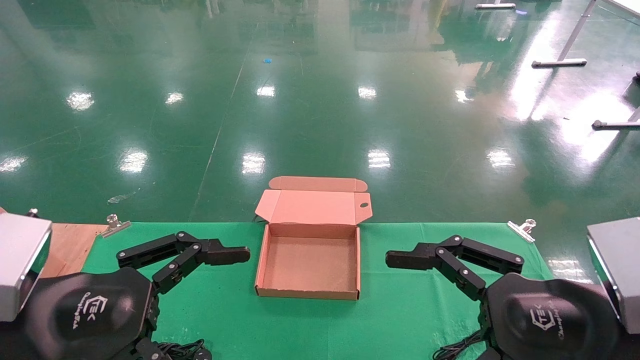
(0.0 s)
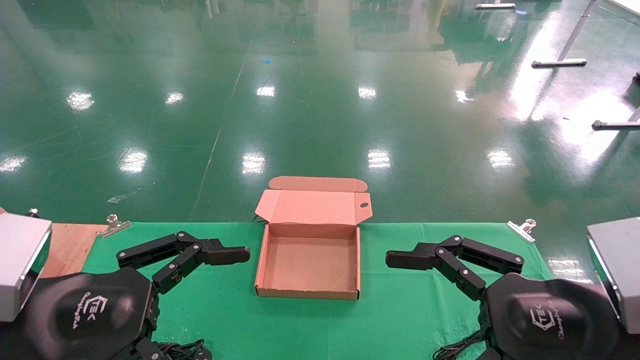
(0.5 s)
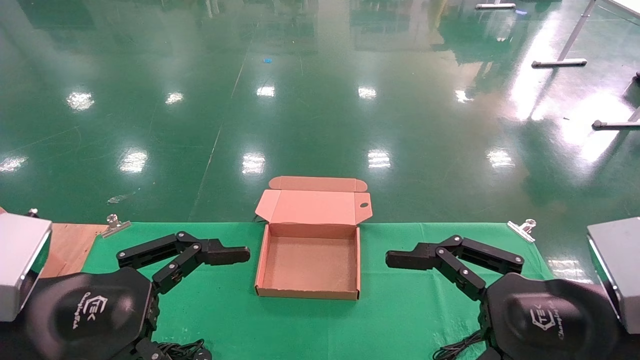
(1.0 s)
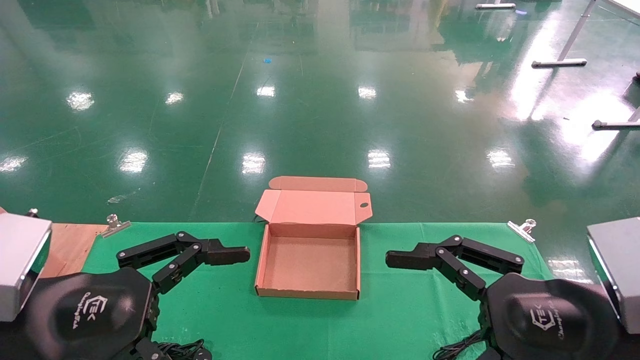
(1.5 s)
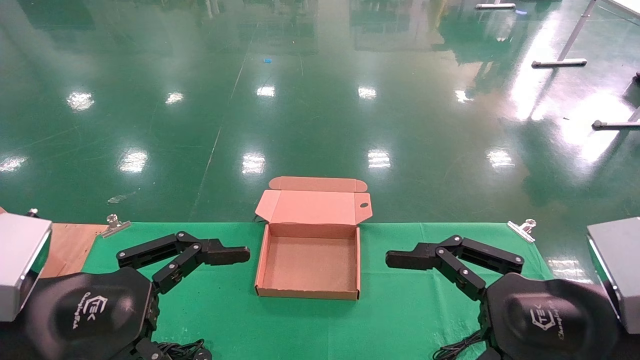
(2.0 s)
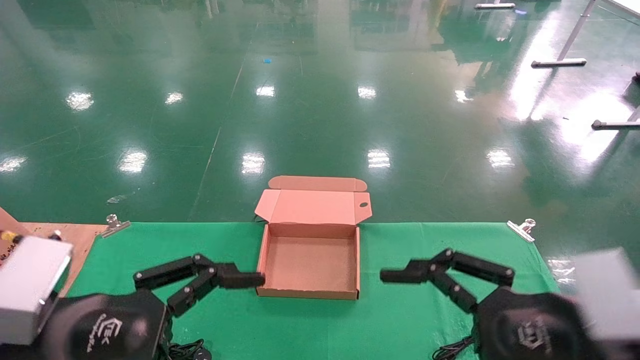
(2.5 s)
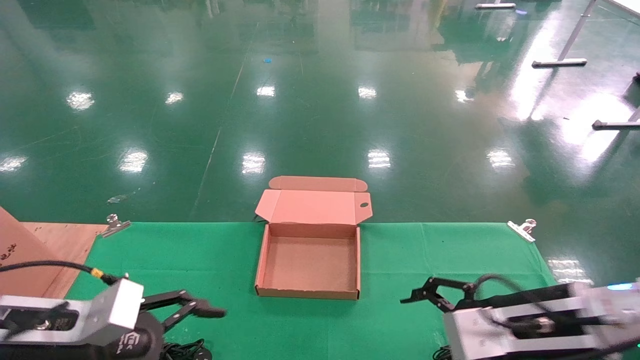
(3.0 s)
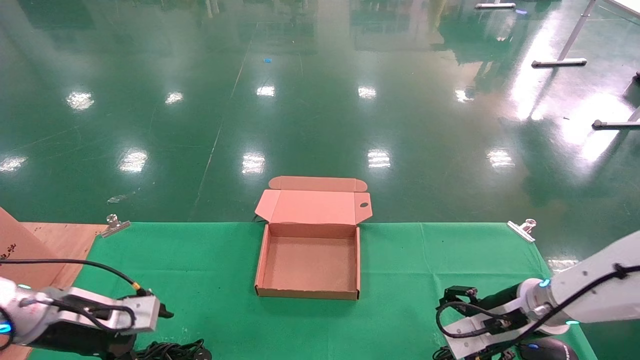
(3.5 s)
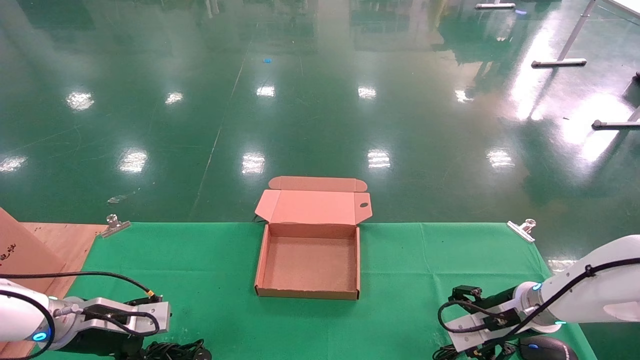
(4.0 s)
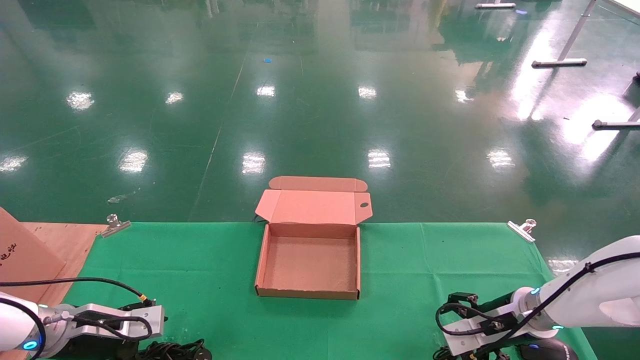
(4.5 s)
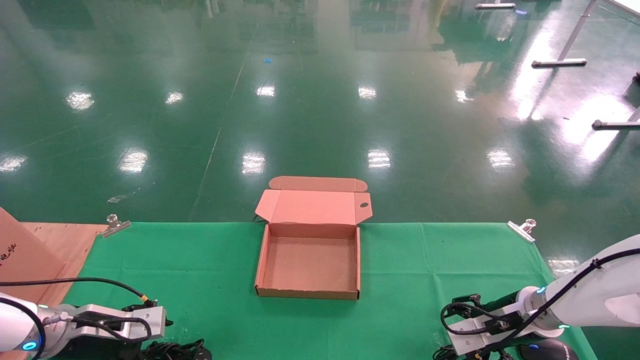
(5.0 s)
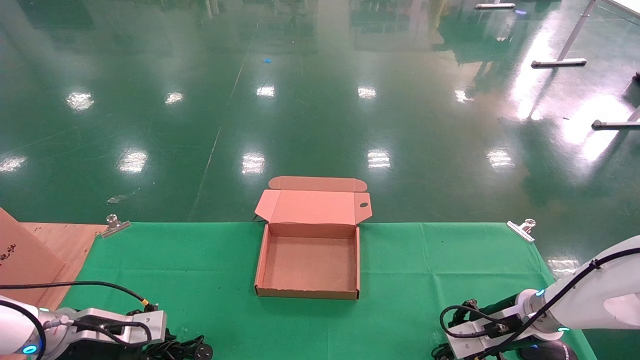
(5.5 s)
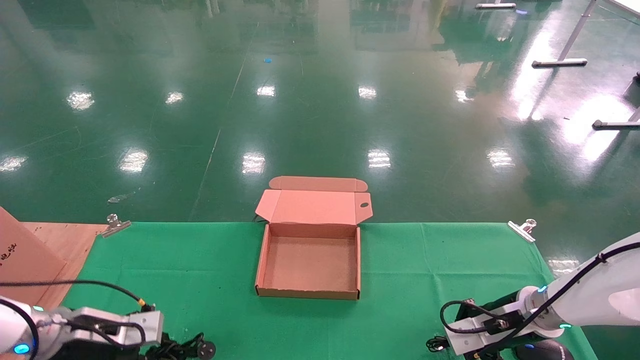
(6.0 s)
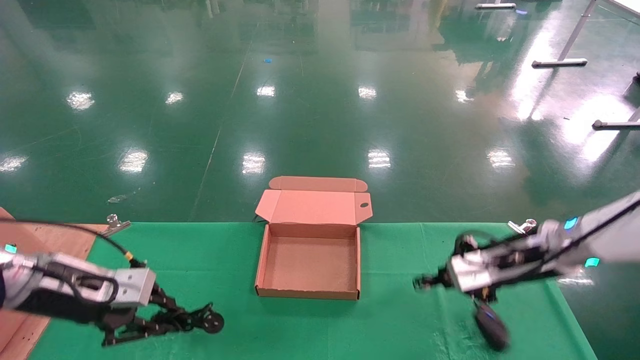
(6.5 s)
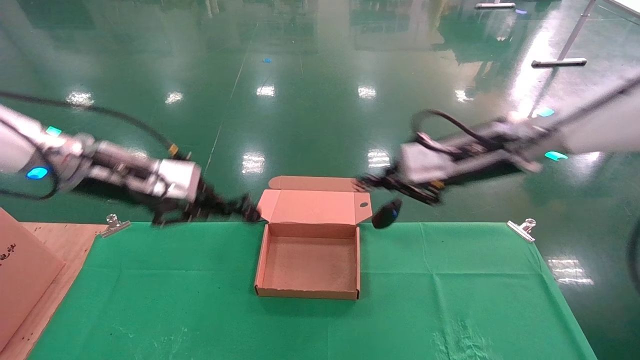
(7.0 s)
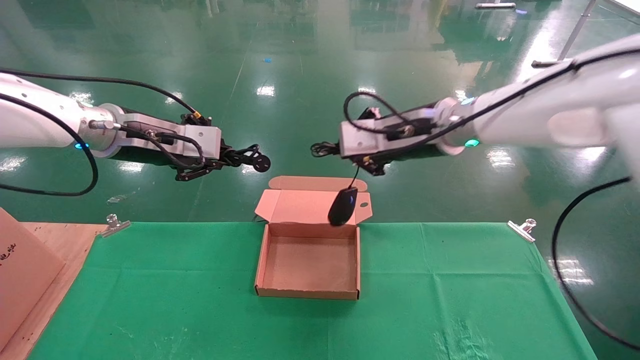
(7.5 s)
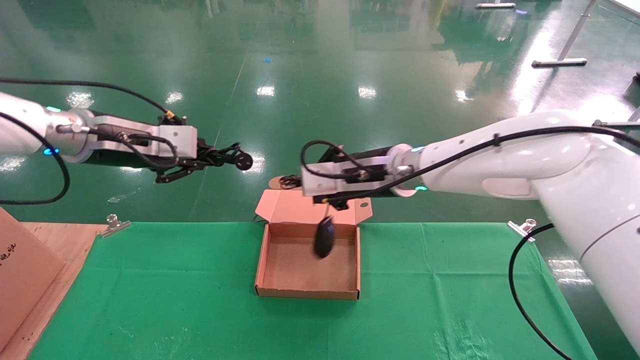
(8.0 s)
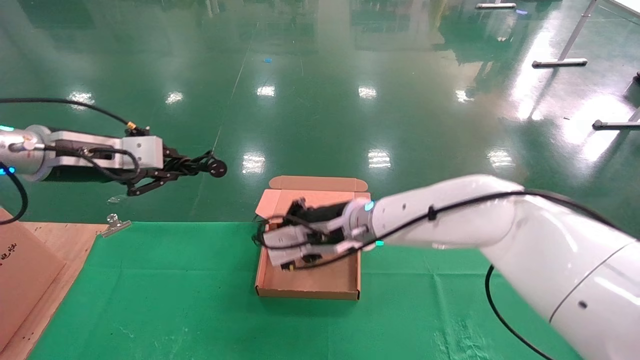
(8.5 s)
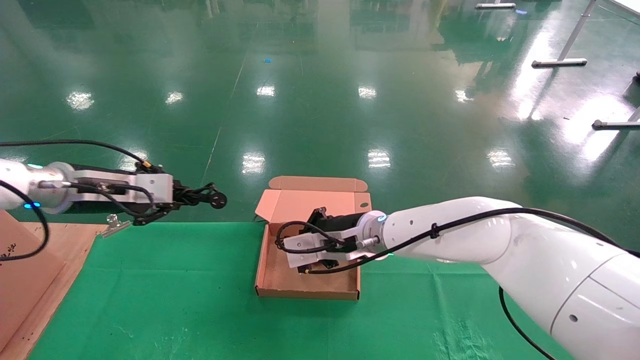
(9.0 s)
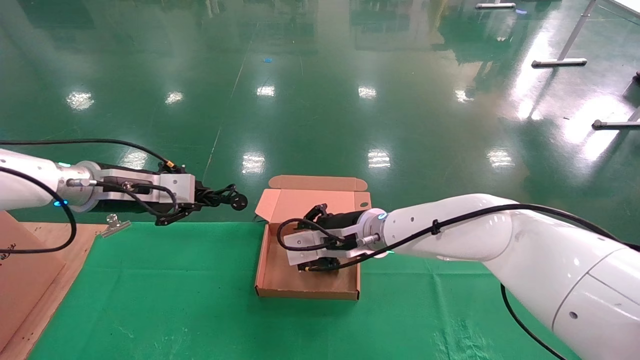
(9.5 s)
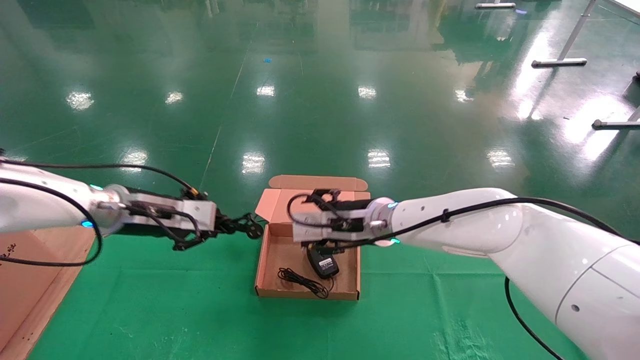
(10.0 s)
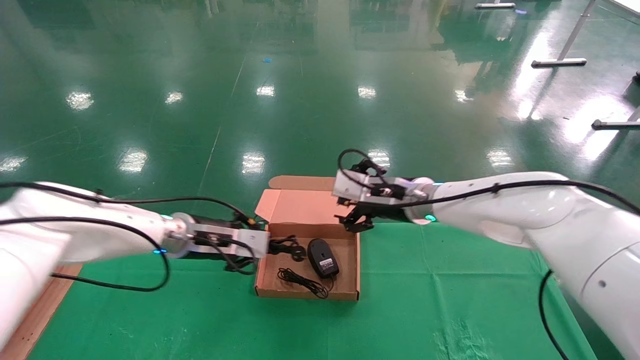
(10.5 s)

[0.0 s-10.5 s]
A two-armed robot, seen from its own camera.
Step, 3.5 to 6.5 s: Grab and lift both the mouse and power cord from the accessory packaging area at the same time.
0.0 to 2.0 s: Both grippers stay about where they are.
2.0 to 4.0 s: The right gripper shifts approximately 30 cm forward and downward. Meanwhile the left gripper is displaced forward, downward and to the left by approximately 30 cm.
4.0 to 6.5 s: The grippers both shift upward by about 10 cm. The left gripper closes up; the right gripper closes up.
6.5 to 8.5 s: The right gripper travels to the left by approximately 25 cm. Meanwhile the left gripper shifts roughly 15 cm upward.
8.5 to 10.5 s: The left gripper shifts roughly 20 cm to the right, downward and forward, while the right gripper goes some 10 cm to the right, and opens.

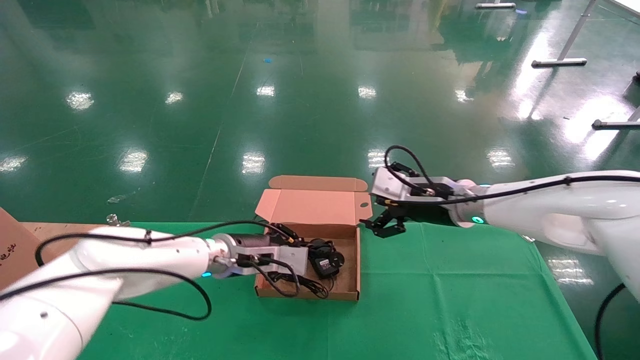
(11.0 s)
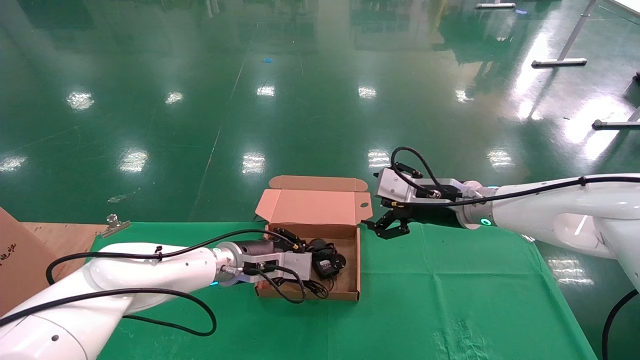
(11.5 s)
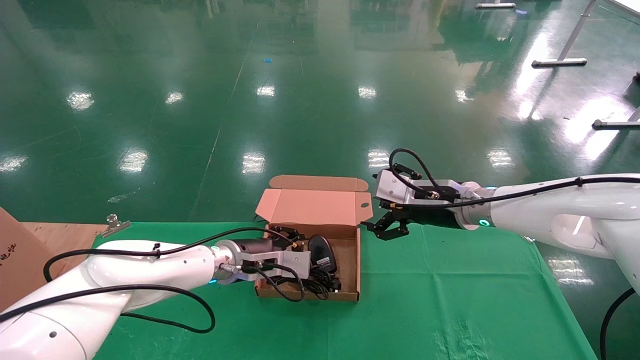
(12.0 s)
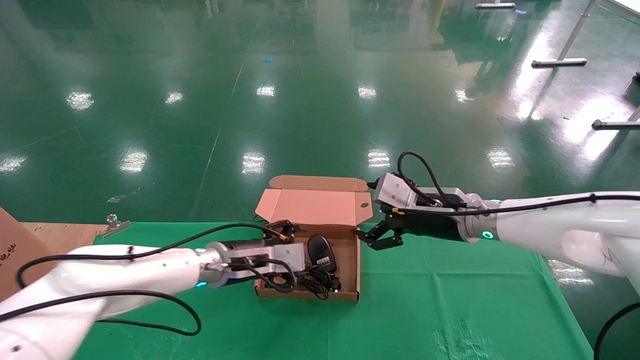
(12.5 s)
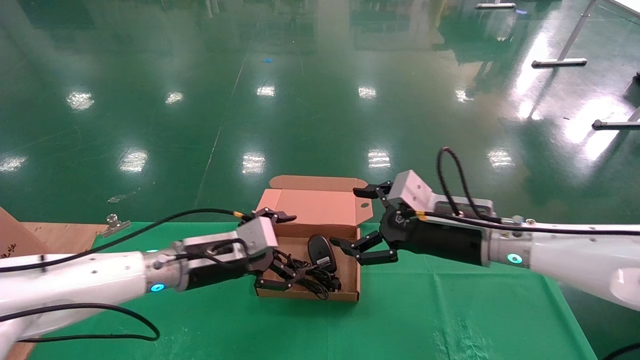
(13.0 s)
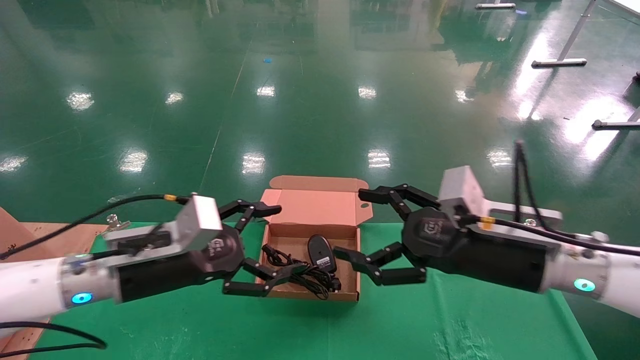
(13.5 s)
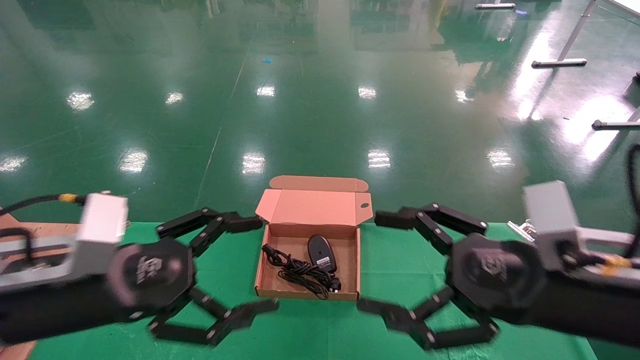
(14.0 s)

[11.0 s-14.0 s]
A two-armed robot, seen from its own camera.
Step, 11.0 to 13.0 s: Place the mouse and power cord into the box.
11.0 to 12.5 s: The left gripper opens its fingers.
12.5 to 14.0 s: The right gripper moves backward, about 20 cm, while the left gripper goes roughly 25 cm backward, to the left and upward.

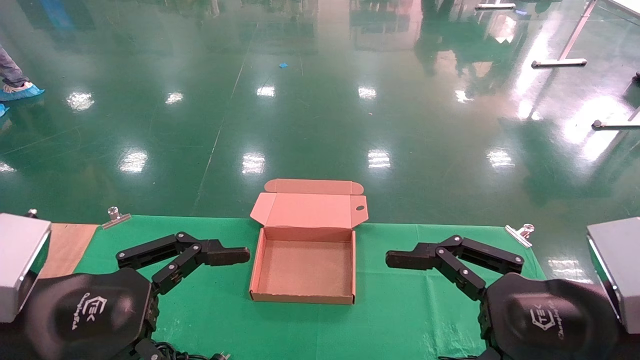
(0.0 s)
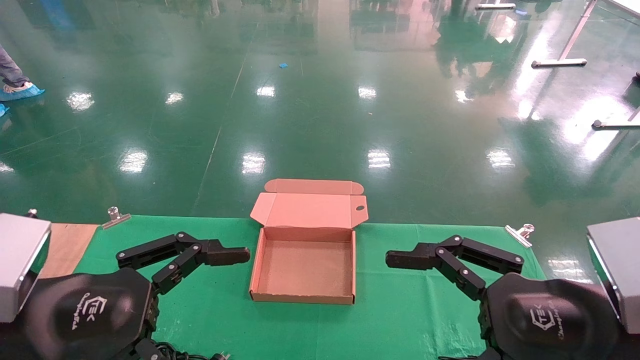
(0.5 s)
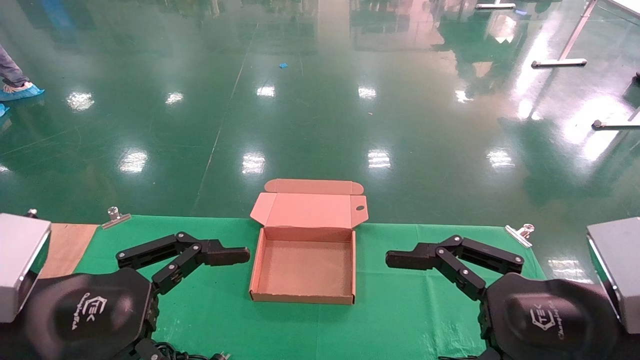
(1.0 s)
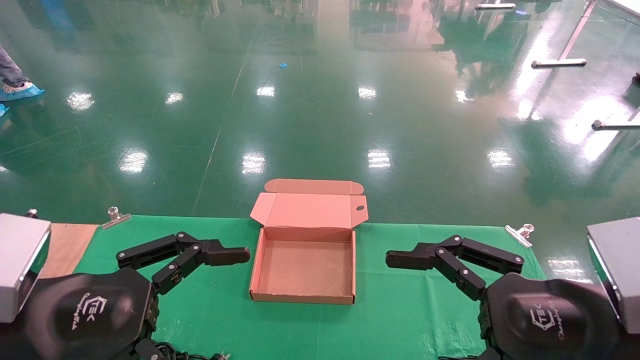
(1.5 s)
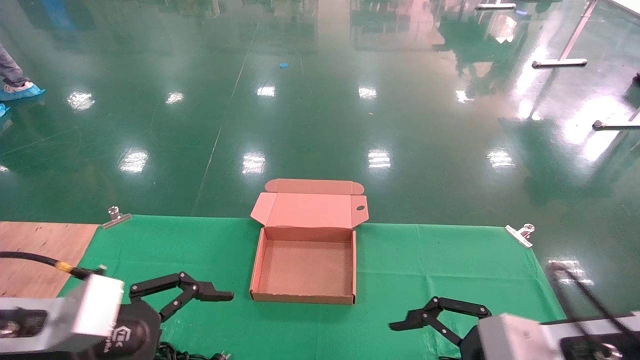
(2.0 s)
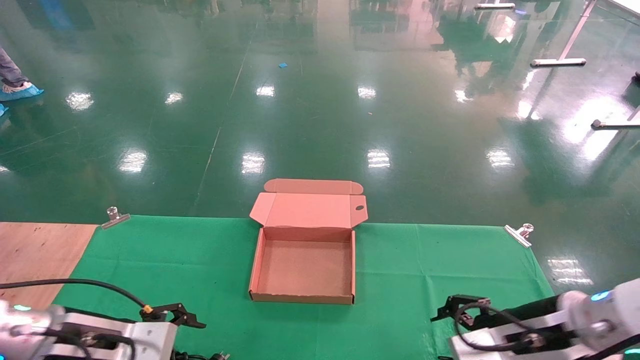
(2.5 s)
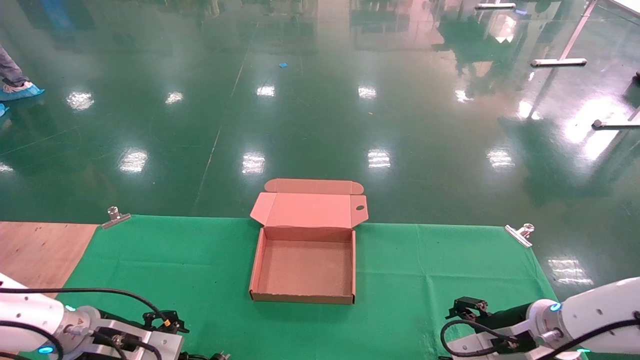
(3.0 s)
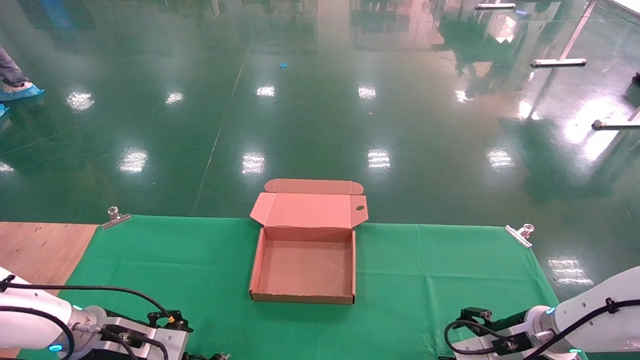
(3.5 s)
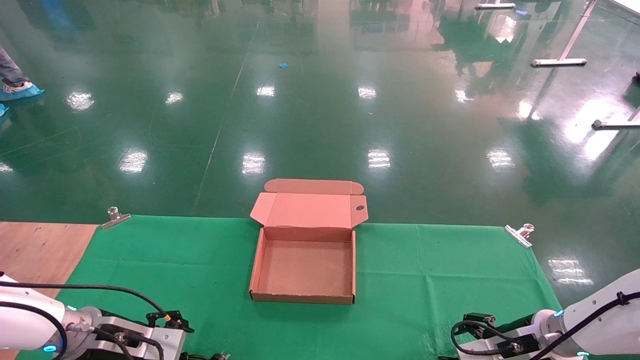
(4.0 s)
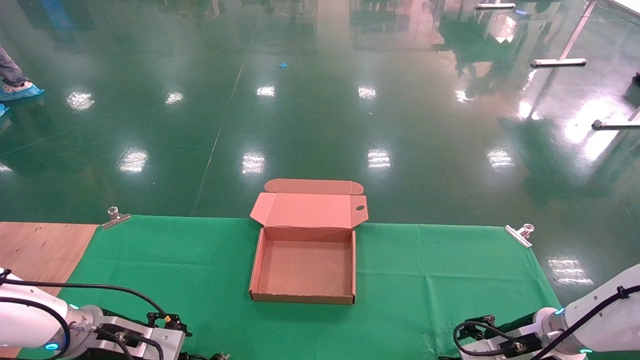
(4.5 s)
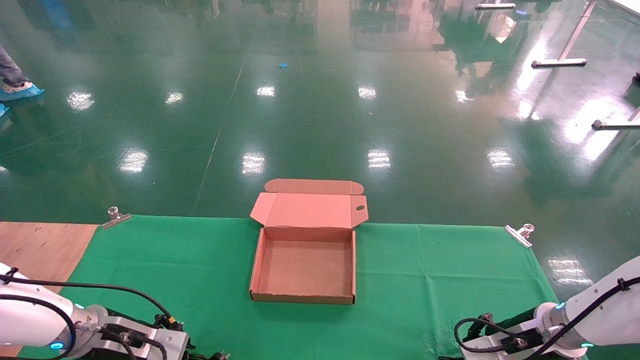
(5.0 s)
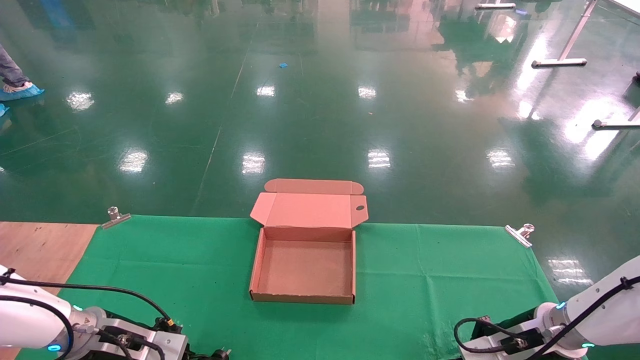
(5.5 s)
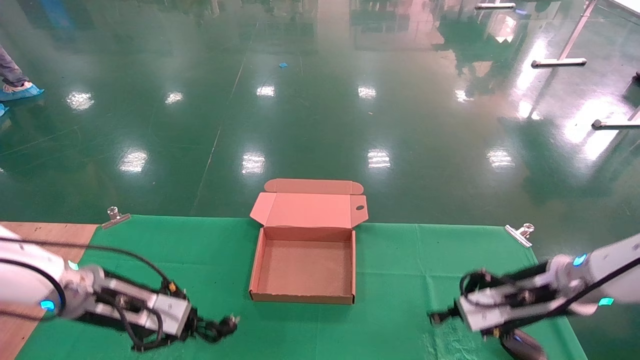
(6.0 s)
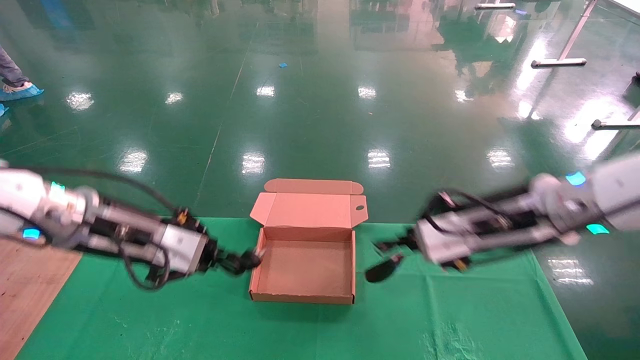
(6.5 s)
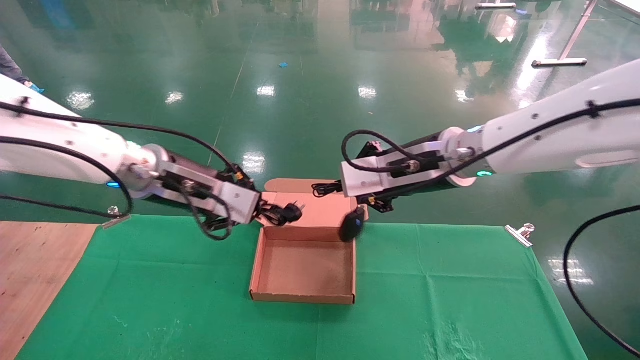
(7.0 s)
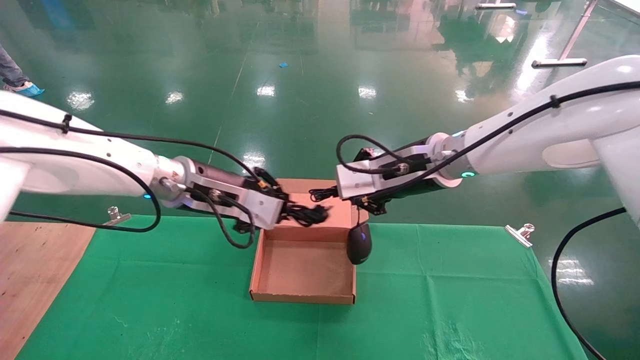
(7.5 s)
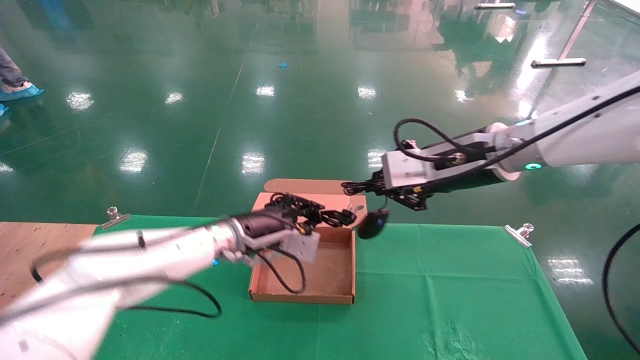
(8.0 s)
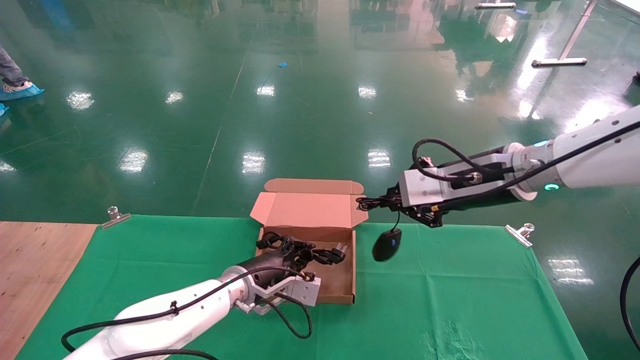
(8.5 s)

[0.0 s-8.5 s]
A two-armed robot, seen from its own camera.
Step, 2.0 to 6.5 s: Grab and lift both the mouse and power cord from the accessory packaging area at the same time.
0.0 to 2.0 s: The left gripper ends up about 5 cm from where it was. The right gripper shifts by roughly 5 cm.
2.0 to 4.0 s: Both grippers travel together forward and downward, about 20 cm.
4.0 to 6.5 s: The left gripper travels upward by roughly 20 cm, and closes up; the right gripper moves upward and to the left, roughly 25 cm, and closes its fingers.
6.5 to 8.5 s: The left gripper is displaced downward, to the right and forward by roughly 25 cm.
